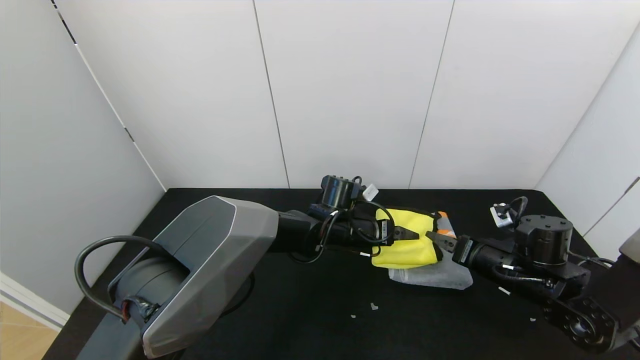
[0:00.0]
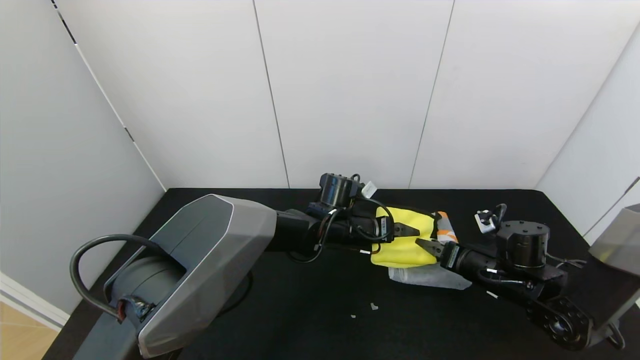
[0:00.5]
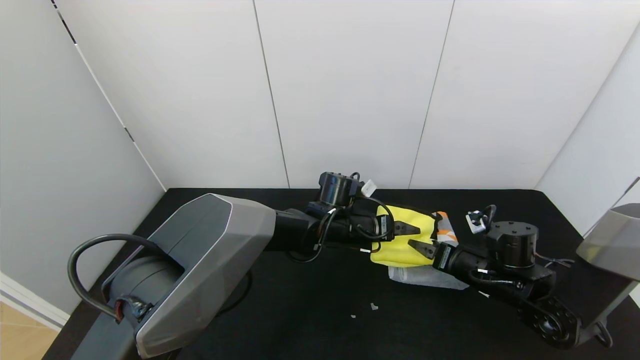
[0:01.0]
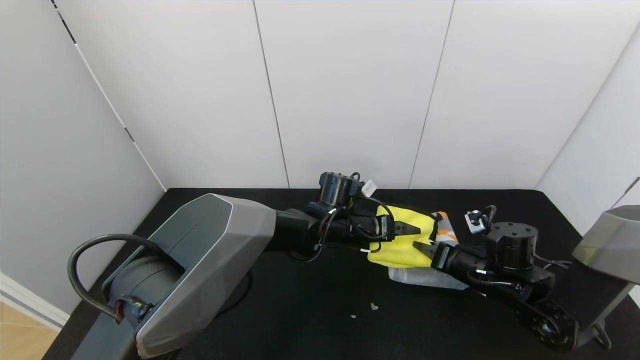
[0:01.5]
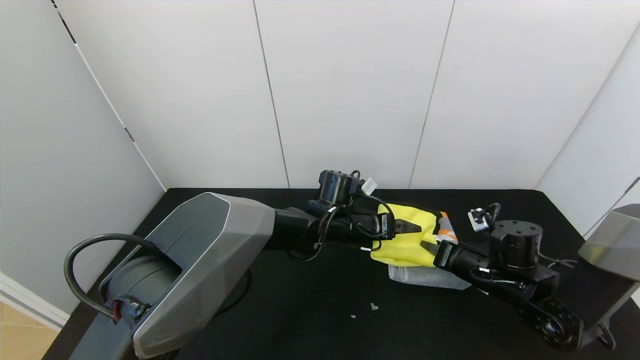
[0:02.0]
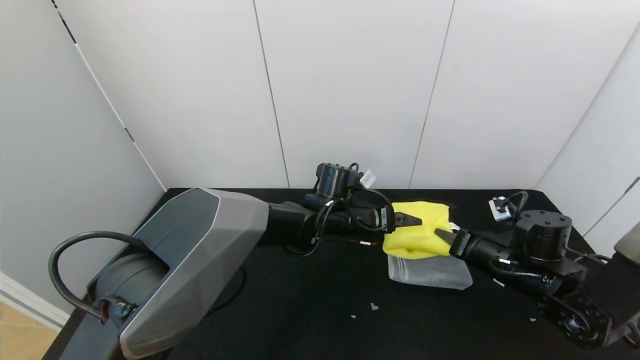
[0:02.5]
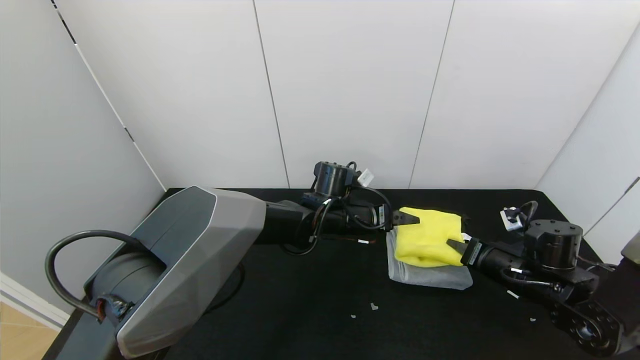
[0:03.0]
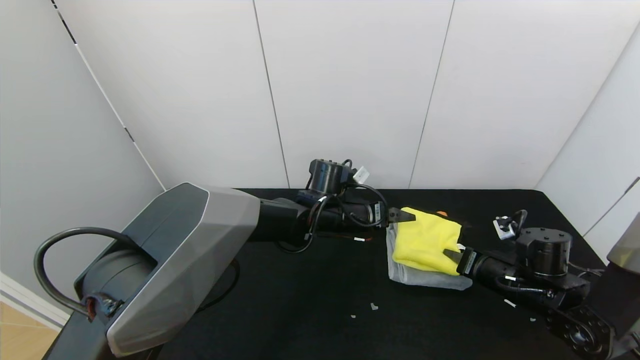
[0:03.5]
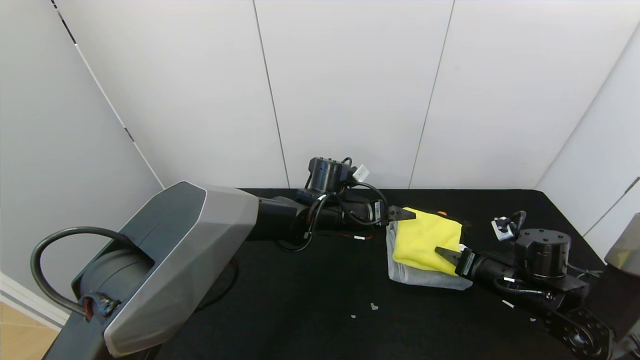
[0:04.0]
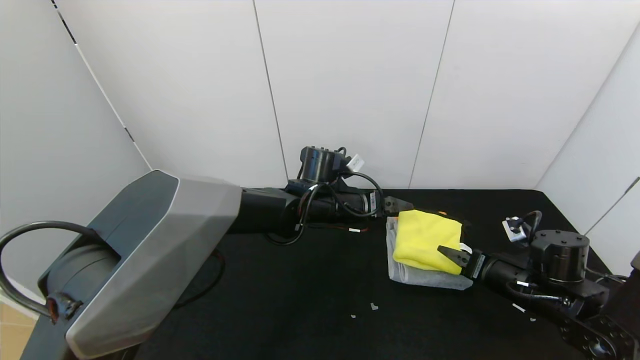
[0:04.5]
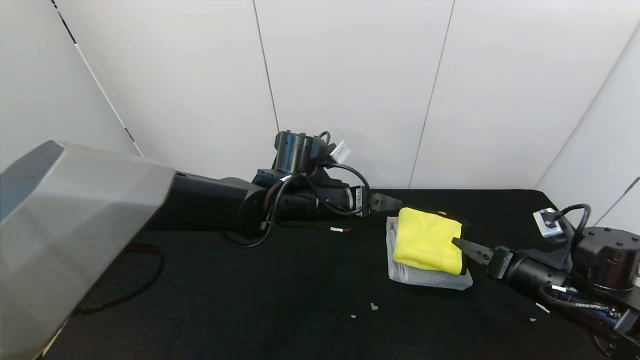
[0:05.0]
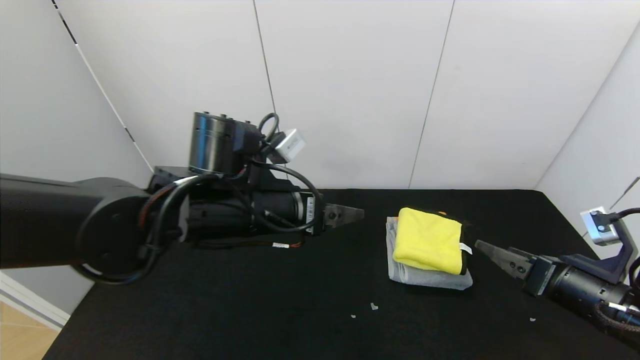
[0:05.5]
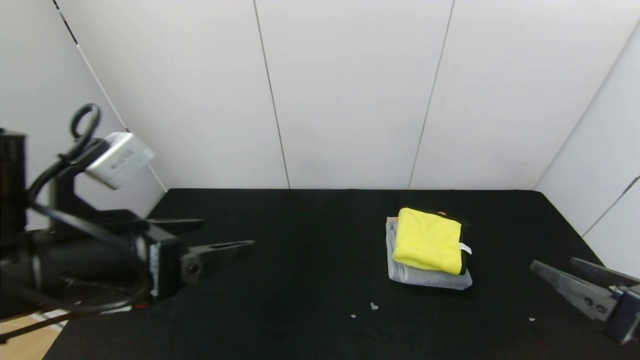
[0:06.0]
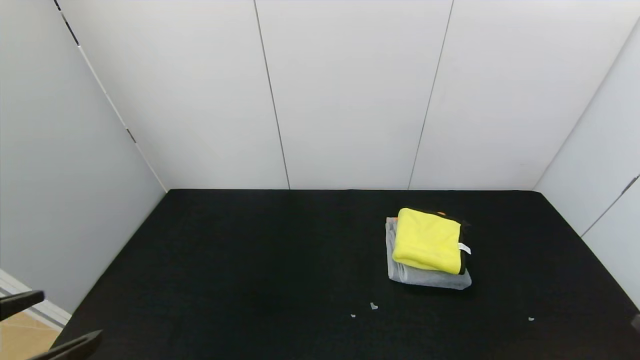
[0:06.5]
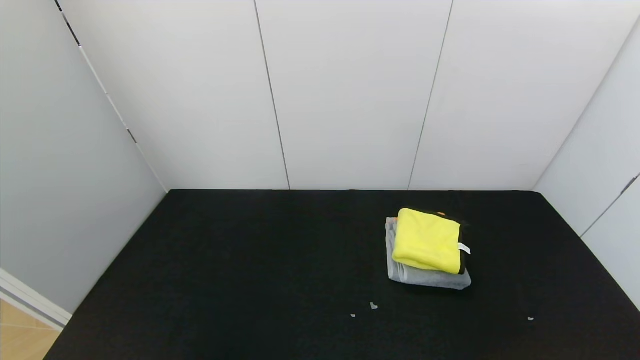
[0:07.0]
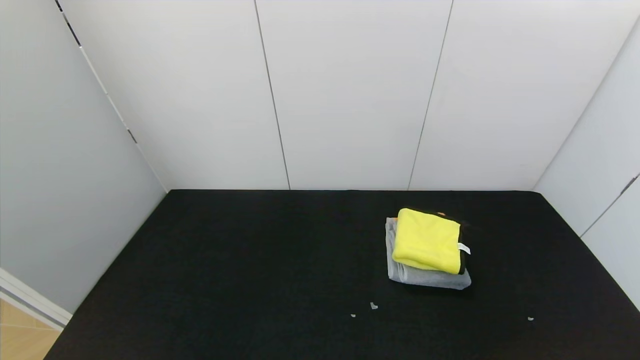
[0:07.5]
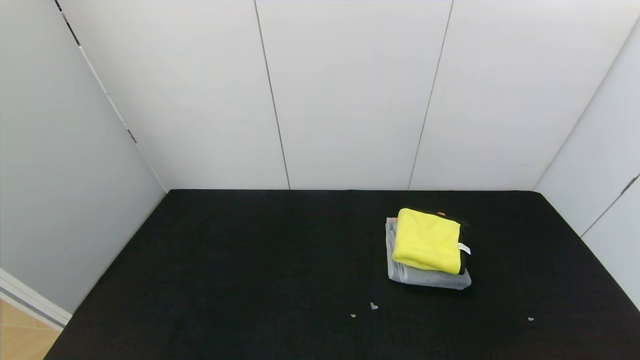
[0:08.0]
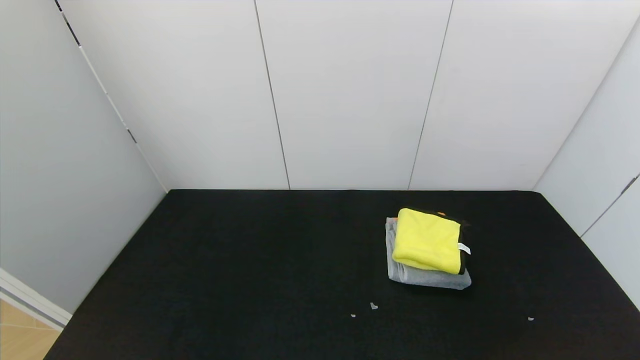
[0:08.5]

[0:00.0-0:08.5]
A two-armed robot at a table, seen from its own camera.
Task of the whole recording: Use the gripper to fold the yellow towel and grey towel in half twice,then put the yellow towel on the grey towel.
Step, 0:00.0 to 0:04.5: Place the yellow towel on the gray towel with the left gripper.
0:00.0 to 0:02.0: The right gripper closes up.
0:02.0 to 0:04.0: The right gripper opens its fingers.
0:04.0 to 0:06.5: The right gripper heads backward and upward, covering roughly 30 cm, and opens its fingers. Meanwhile the left gripper moves backward and to the left, approximately 50 cm.
